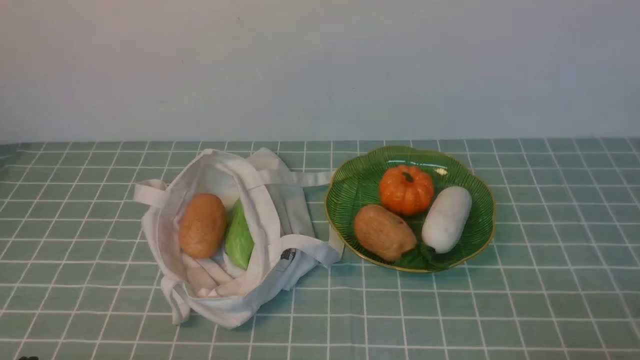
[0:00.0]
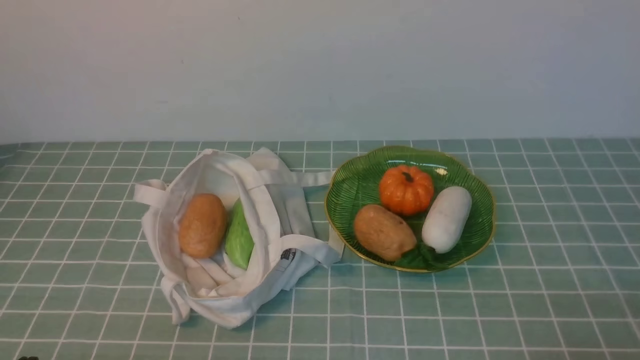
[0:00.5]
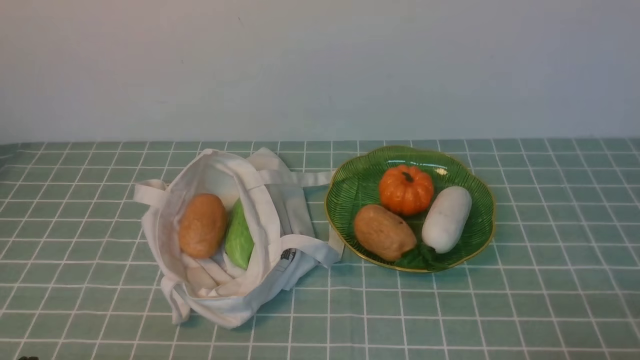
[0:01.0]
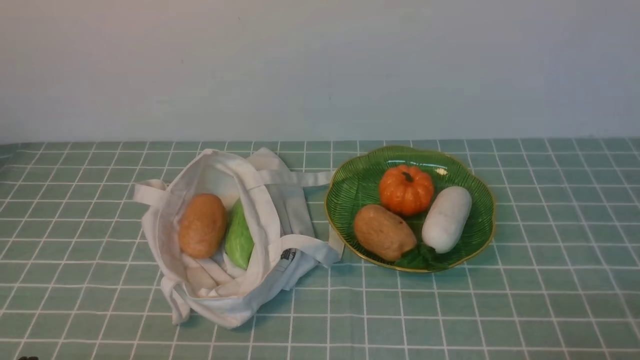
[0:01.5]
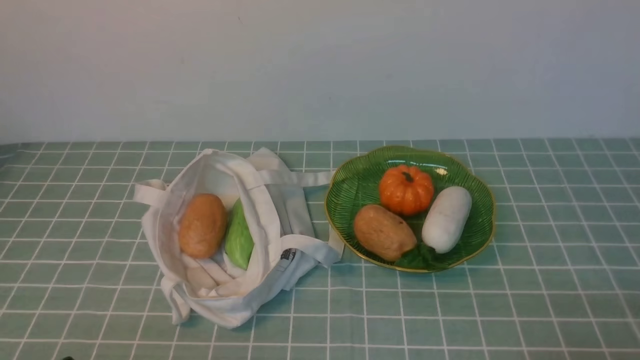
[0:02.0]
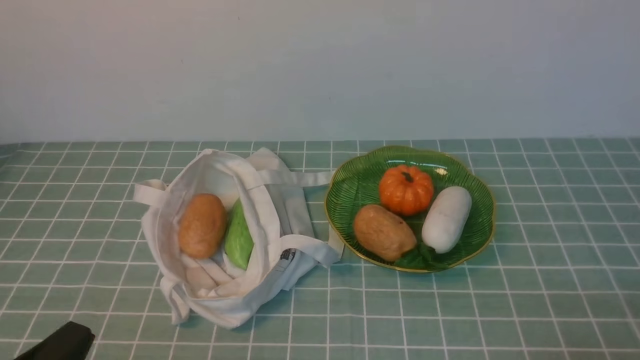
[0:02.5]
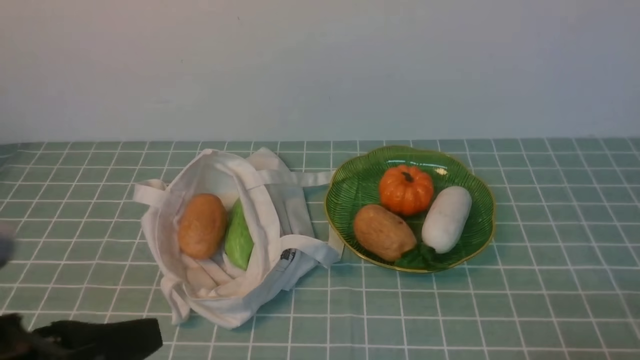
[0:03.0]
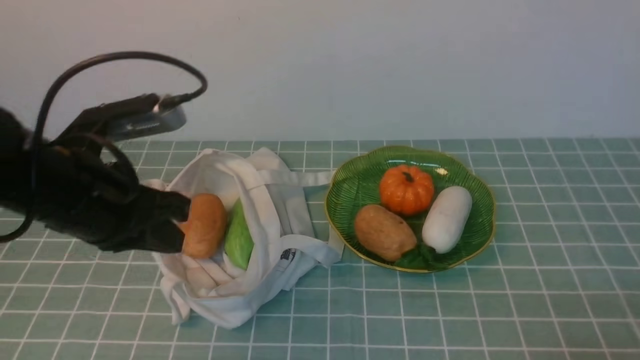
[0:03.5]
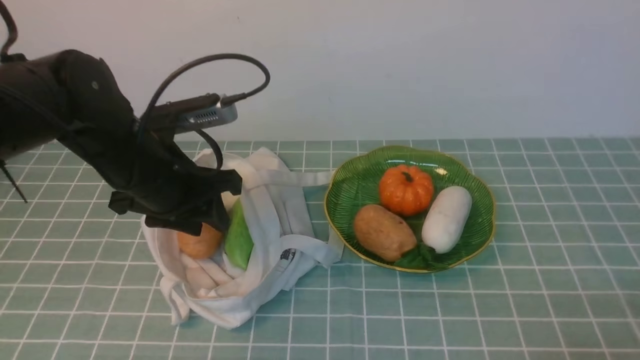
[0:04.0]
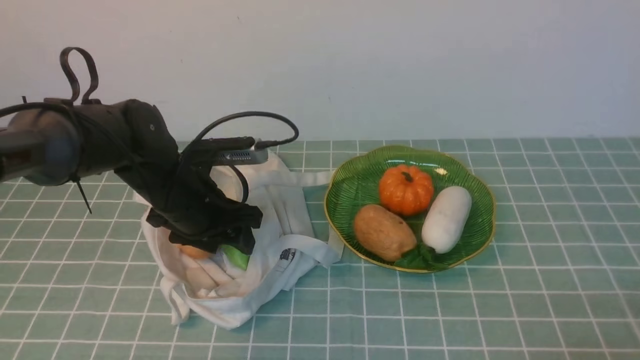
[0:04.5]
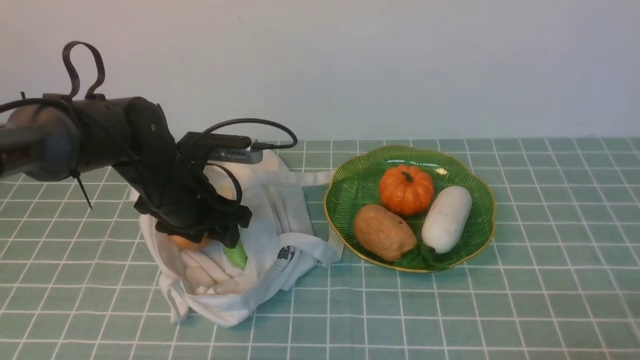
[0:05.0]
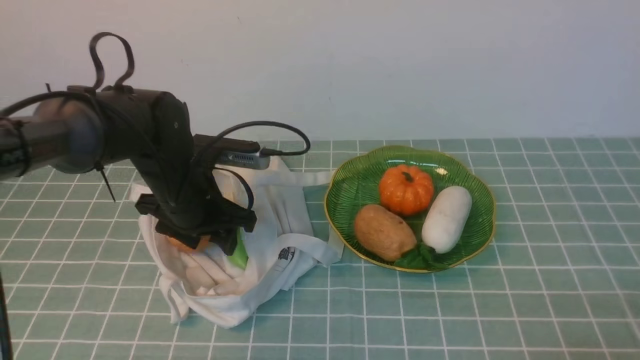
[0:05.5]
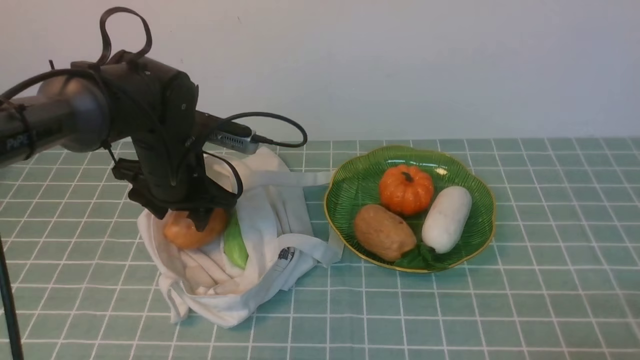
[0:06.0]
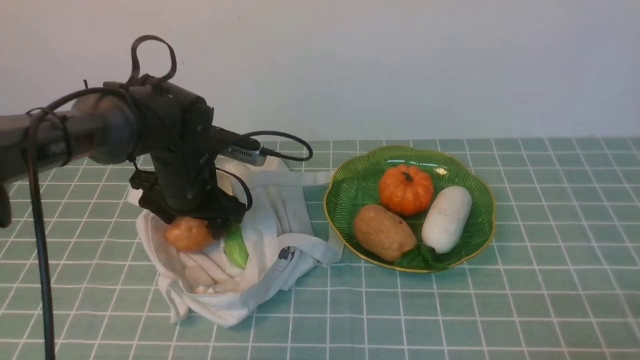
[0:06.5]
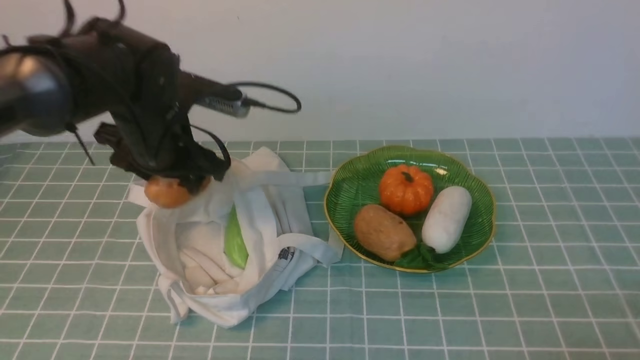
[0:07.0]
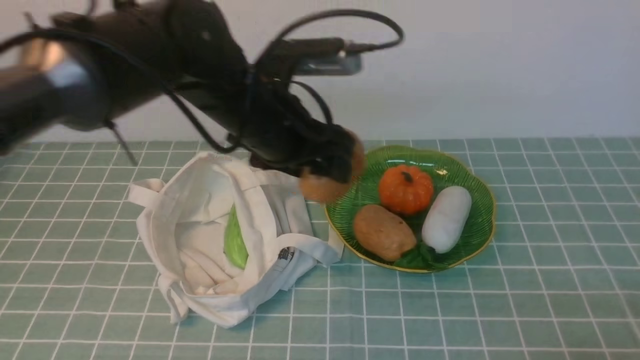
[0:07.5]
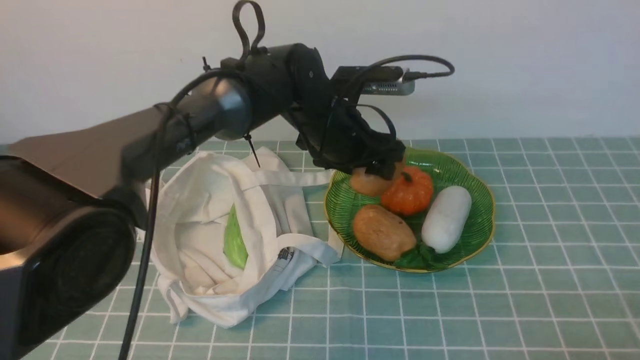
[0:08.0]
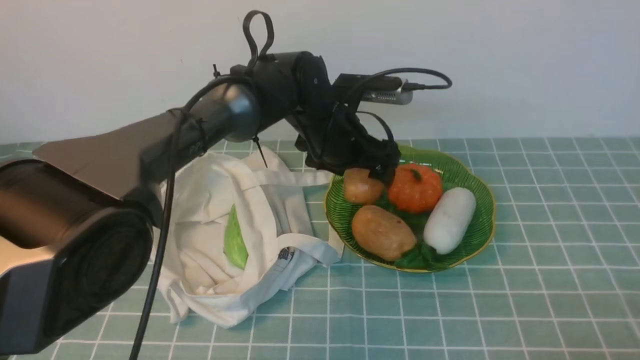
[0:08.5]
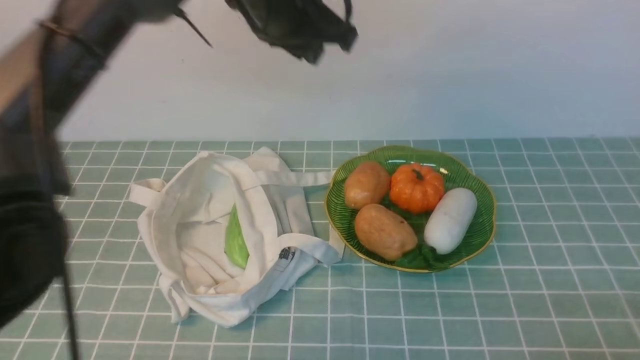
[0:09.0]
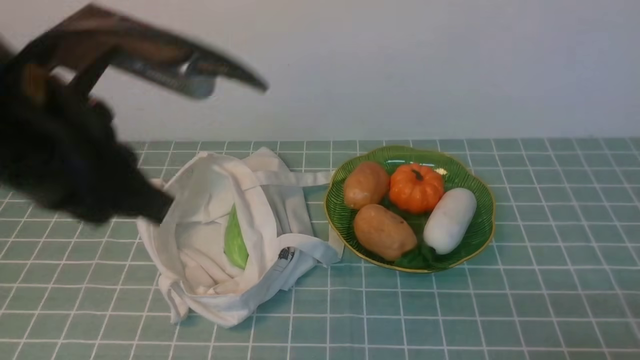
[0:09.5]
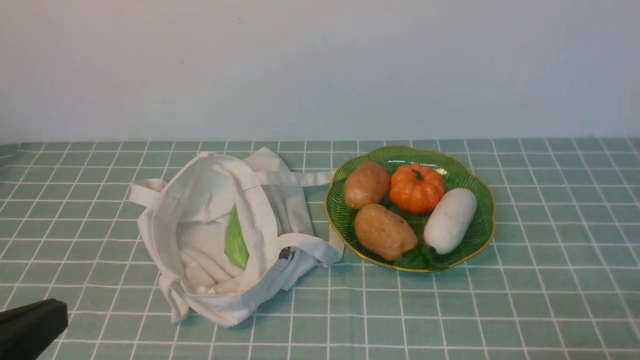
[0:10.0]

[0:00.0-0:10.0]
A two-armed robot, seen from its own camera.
Task of the whole recording: take vegetables from cloth bag on blue coffee tablecloth place on plate.
Step, 0:00.0 to 0:06.5: Grasp the potato with left gripper.
Step, 0:07.0 to 0:08.5: Place the potato on the plate with left gripper.
0:02.0 to 0:04.0: The left gripper is displaced forward by roughly 25 cm.
0:04.0 to 0:06.0: The left gripper is displaced downward and forward by approximately 10 cm, and opens.
0:06.0 to 0:08.0: The left gripper shifts about 15 cm to the right.
0:08.0 to 0:10.0: The left gripper travels backward and to the left by approximately 40 cm, and closes.

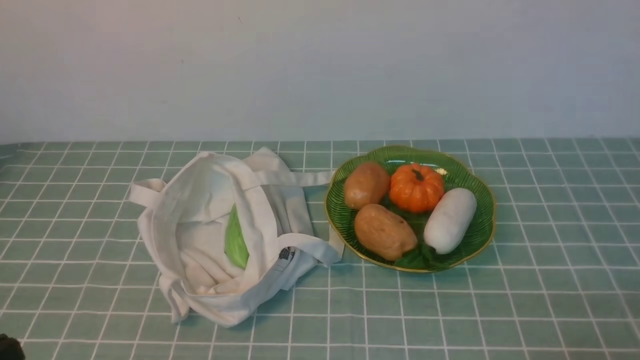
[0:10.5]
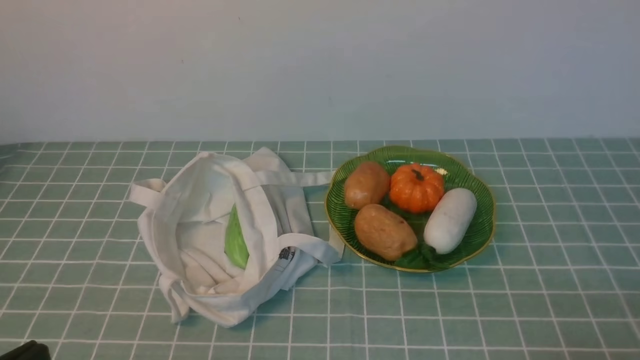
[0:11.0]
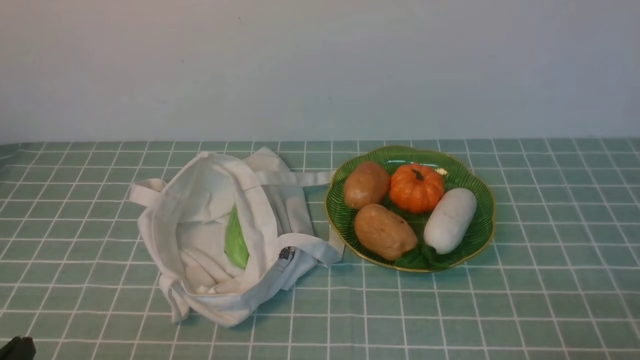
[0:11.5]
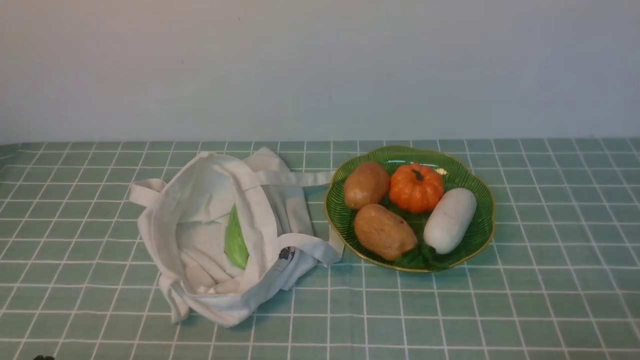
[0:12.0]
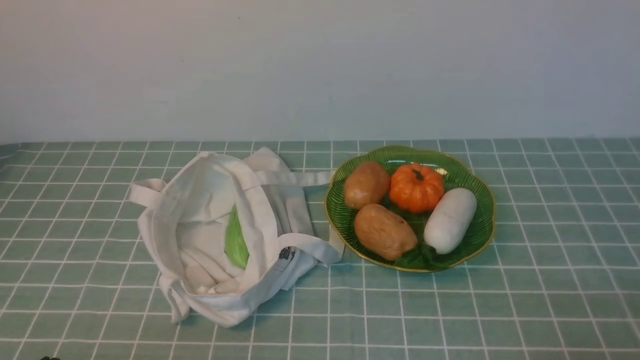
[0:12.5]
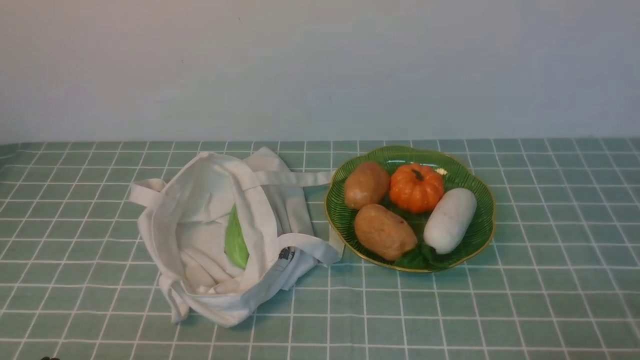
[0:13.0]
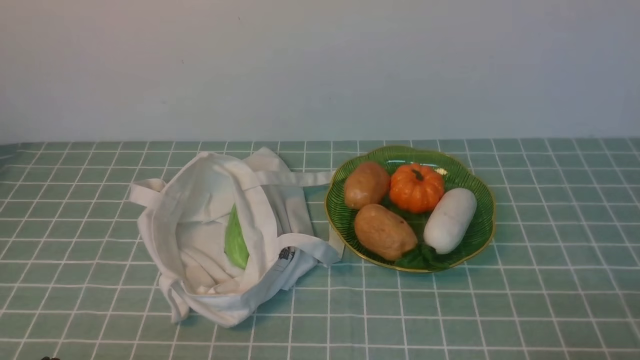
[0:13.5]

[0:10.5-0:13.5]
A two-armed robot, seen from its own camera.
Task of the whole recording: take vegetables from cloth bag on blue coffee tablecloth place on plate.
0:12.0 to 0:13.5: Both grippers stay about where they are.
